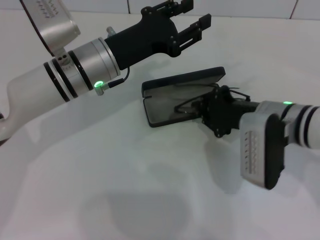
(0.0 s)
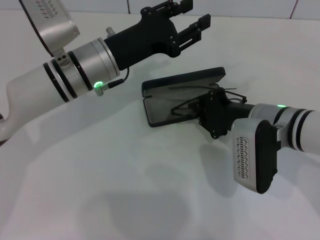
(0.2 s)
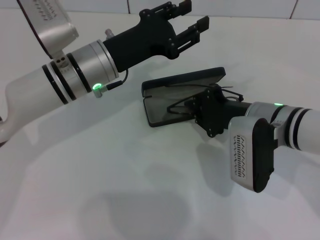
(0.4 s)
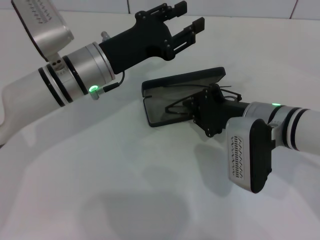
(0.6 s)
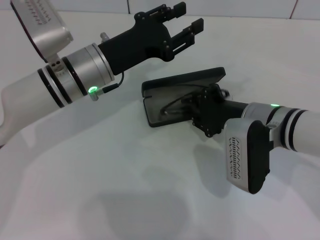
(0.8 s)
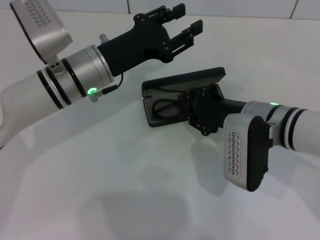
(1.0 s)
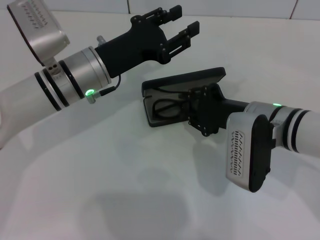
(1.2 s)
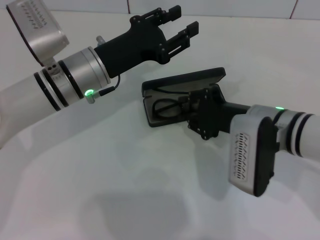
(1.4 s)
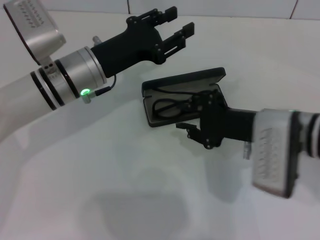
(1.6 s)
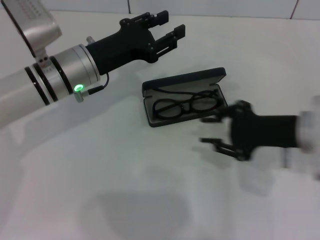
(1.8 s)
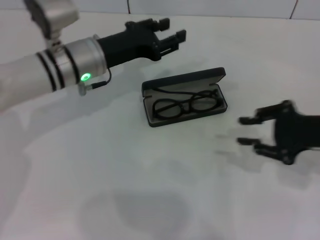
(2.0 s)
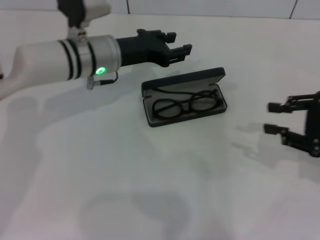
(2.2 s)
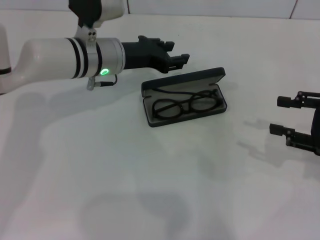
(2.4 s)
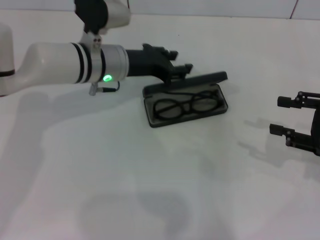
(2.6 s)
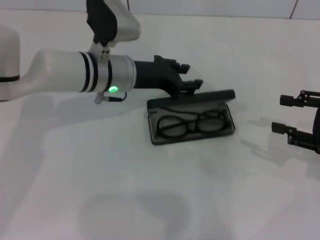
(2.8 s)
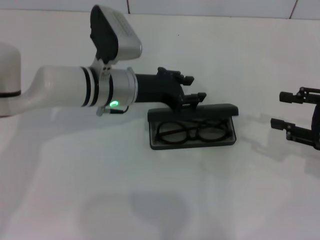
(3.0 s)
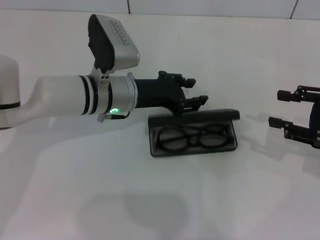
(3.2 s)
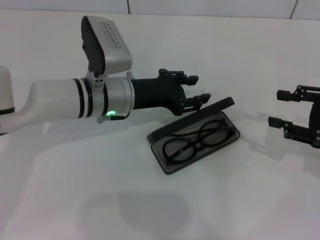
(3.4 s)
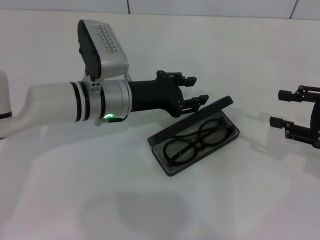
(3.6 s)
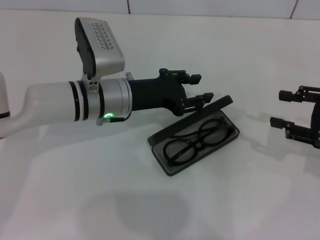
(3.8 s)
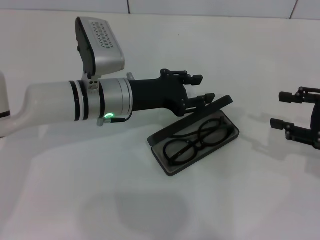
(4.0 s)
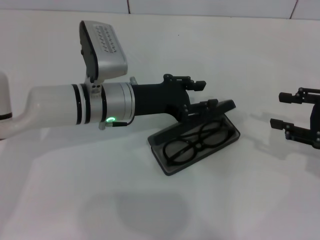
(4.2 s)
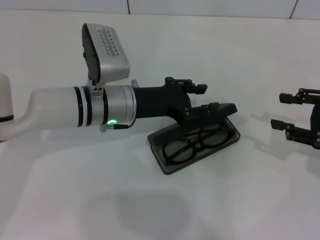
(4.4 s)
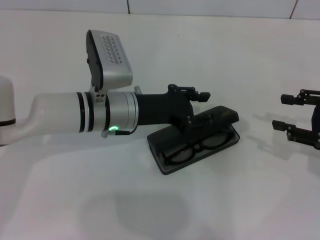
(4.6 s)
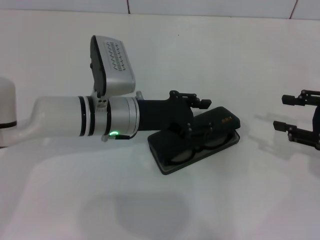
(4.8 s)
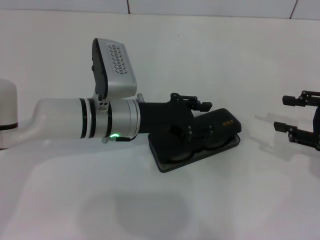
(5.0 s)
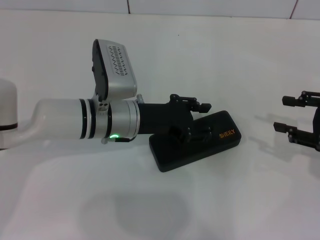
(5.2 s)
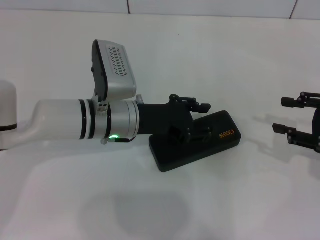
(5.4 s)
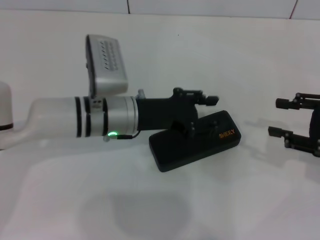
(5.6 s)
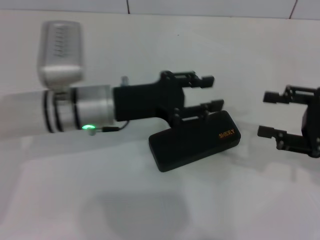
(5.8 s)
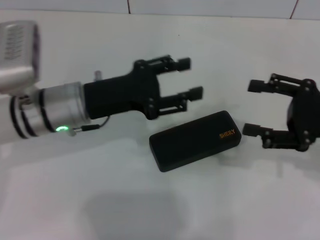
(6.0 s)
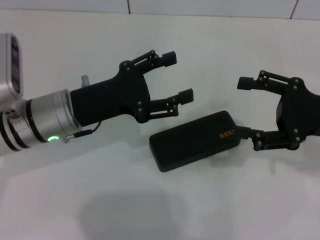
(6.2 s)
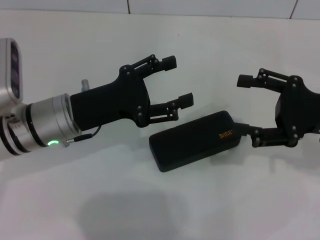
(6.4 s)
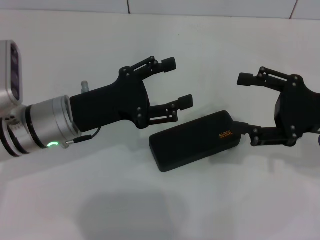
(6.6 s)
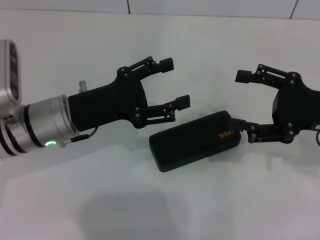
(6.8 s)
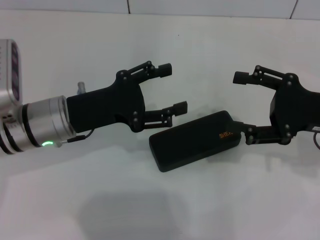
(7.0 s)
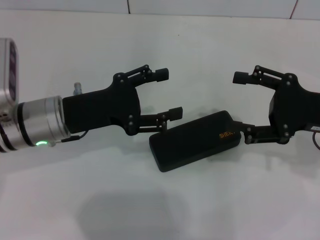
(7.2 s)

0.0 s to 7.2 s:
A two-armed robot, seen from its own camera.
Step, 0.0 to 1.6 s: Put the glasses into the case with your right hand.
Step, 1.8 to 5.2 s: Close the glasses case with your left hand.
0.0 to 1.4 s: The grippers stay close to where they were, moving slightly.
1.4 to 2.8 s: The right gripper heads to the right, covering about 20 cm. The left gripper ends up some 5 cm from where it was.
2.8 to 4.4 s: The left gripper moves roughly 5 cm.
4.4 to 5.8 s: The grippers make only small movements.
5.8 to 7.2 s: The right gripper opens up; the left gripper moves to the left, some 5 cm, and opens.

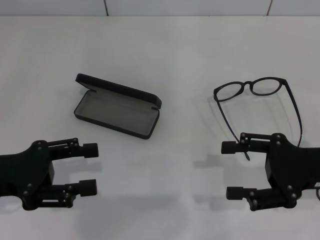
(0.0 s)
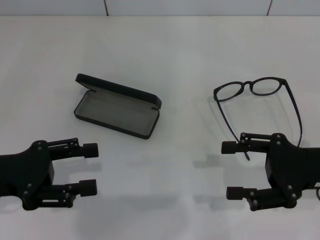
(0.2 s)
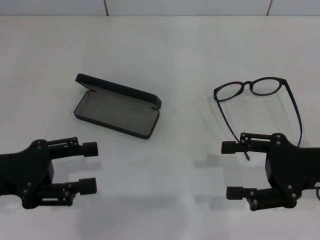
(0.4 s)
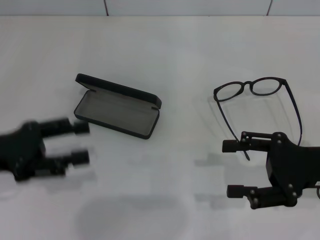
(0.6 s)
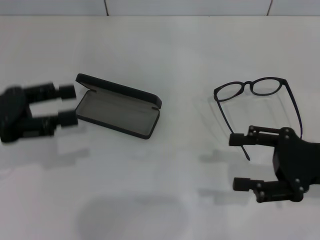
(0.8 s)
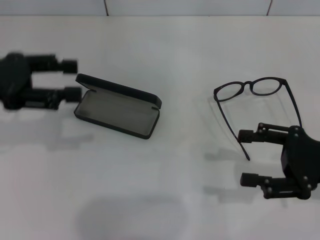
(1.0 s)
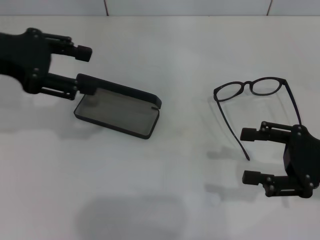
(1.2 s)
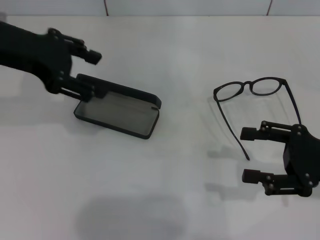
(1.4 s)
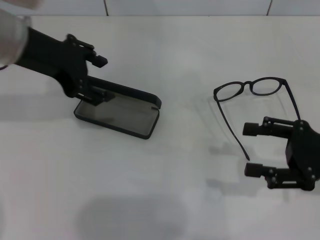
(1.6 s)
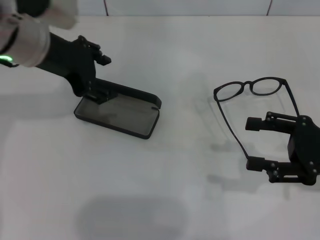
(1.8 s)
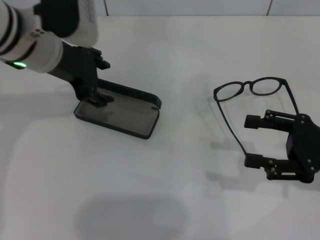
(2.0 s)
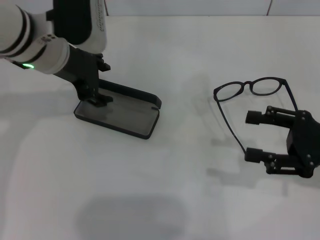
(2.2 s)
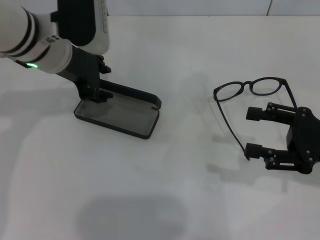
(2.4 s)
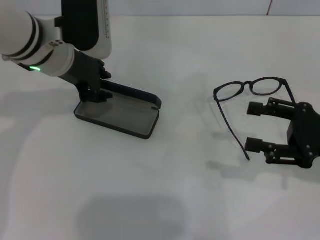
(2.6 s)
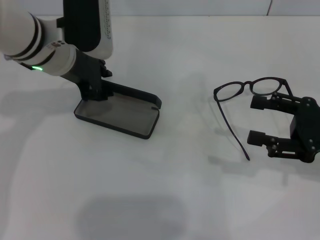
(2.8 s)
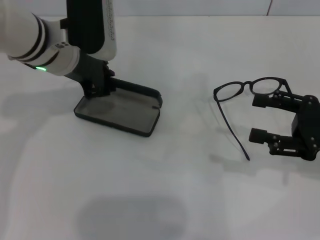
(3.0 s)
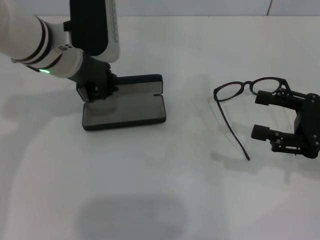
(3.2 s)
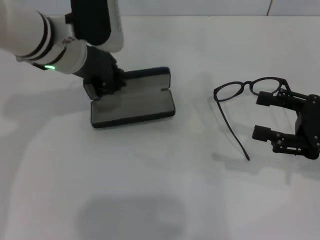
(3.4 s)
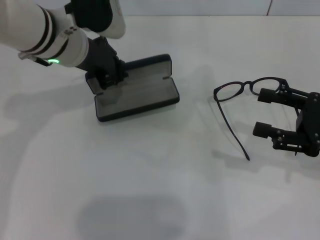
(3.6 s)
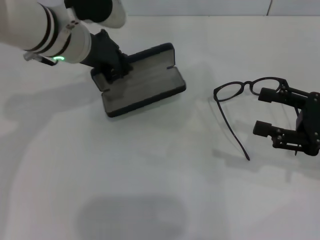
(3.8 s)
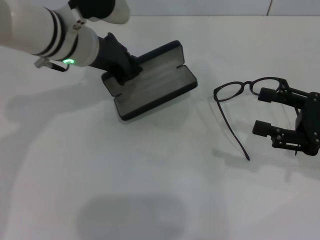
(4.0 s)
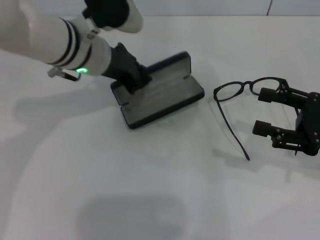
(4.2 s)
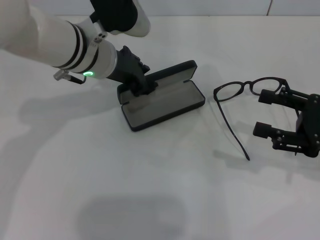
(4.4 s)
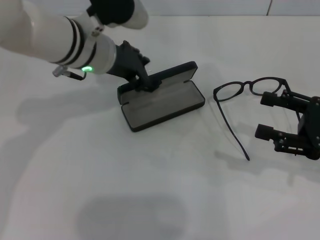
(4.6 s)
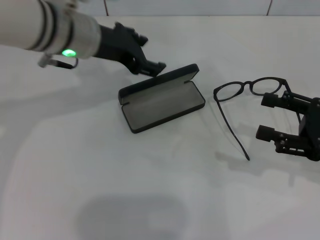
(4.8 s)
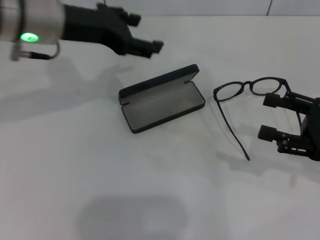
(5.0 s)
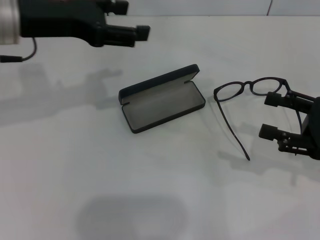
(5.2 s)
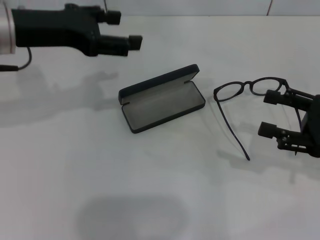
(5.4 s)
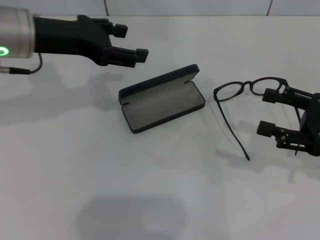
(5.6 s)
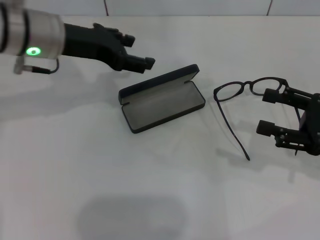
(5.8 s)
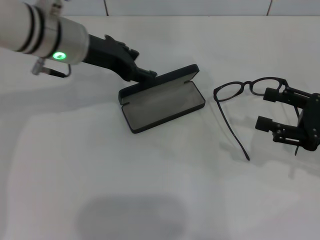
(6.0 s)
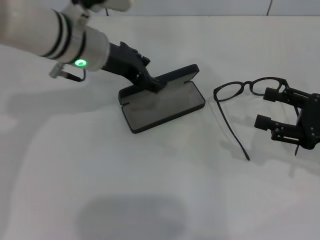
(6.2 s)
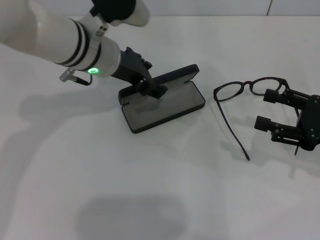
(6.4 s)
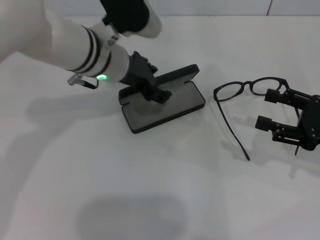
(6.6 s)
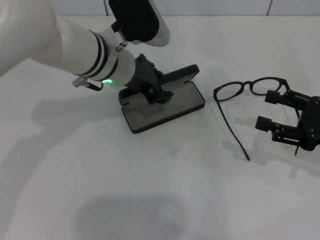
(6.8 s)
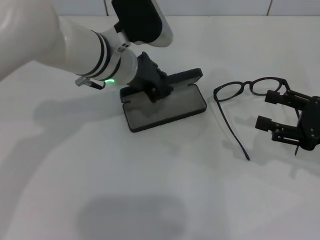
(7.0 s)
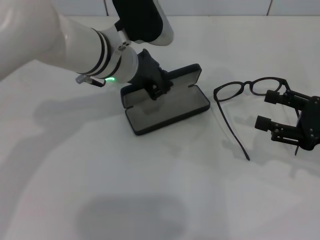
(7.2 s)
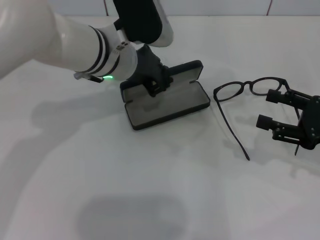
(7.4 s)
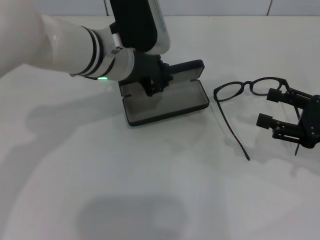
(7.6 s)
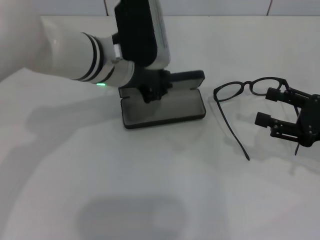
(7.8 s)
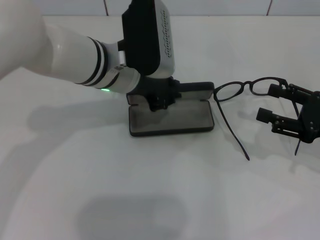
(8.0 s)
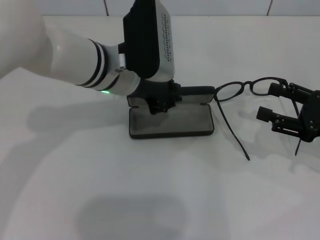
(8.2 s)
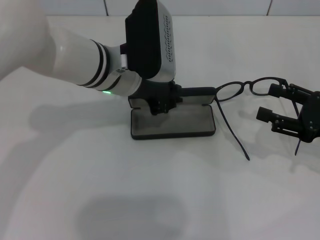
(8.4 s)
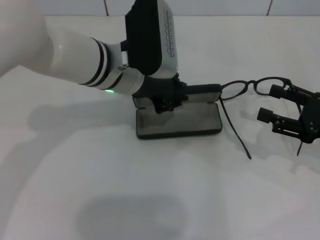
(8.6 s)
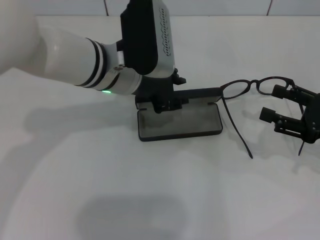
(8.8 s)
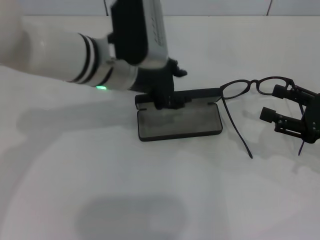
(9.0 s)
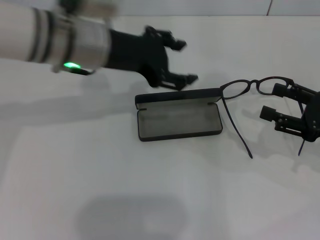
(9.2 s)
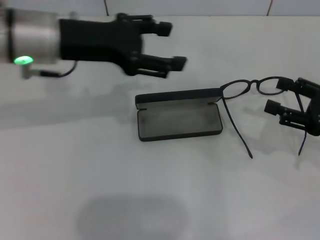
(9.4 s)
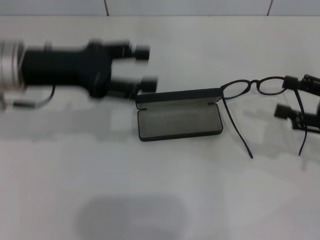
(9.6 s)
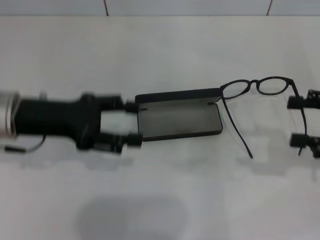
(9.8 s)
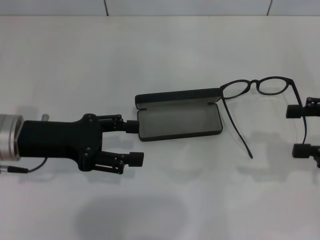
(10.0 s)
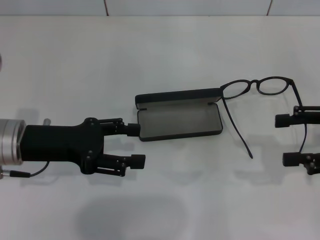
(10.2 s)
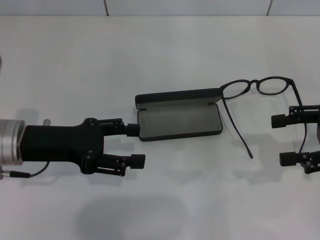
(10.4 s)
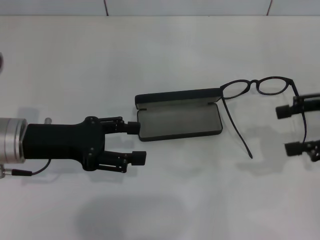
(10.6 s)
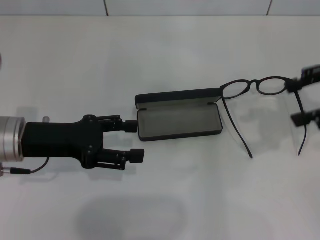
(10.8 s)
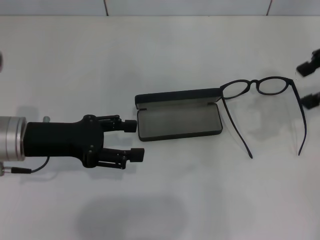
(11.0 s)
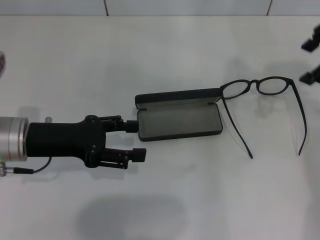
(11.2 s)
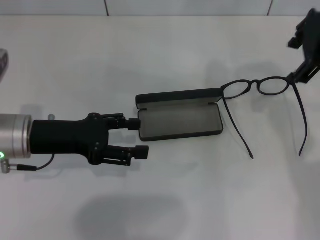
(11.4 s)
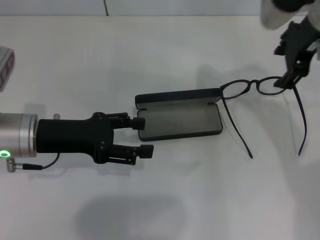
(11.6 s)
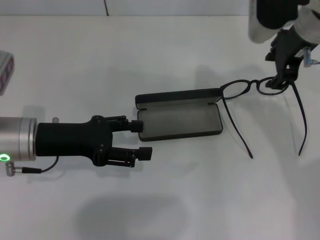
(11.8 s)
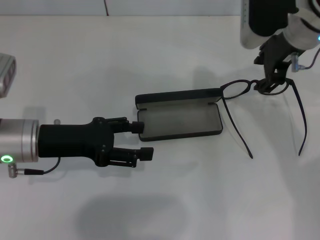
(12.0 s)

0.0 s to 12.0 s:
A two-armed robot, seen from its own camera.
Step, 0.0 to 3.0 s: Grab the glasses case with your left hand.
Step, 3.2 to 8.8 s: Place the glasses case in the center of the table with your left hand.
0.0 to 1.6 s: The left gripper shifts roughly 20 cm forward, upward and to the right.
1.6 to 3.0 s: The left gripper heads downward, covering about 5 cm, and closes up.
4.4 to 6.0 s: The left gripper opens.
6.0 to 7.6 s: The left gripper is displaced to the right by some 5 cm, and closes up.
7.6 to 9.0 s: The grippers move only a little.
9.0 to 10.4 s: The left gripper shifts some 15 cm to the left, backward and downward, and opens, while the right gripper travels upward by approximately 5 cm.
10.4 to 12.0 s: The right gripper travels to the left and forward by about 20 cm.

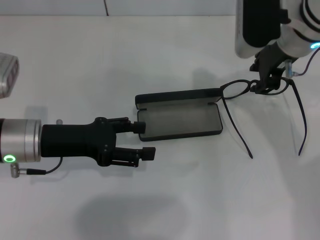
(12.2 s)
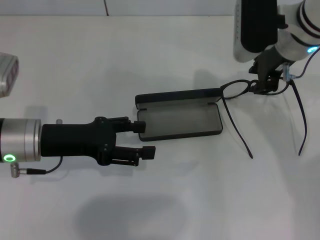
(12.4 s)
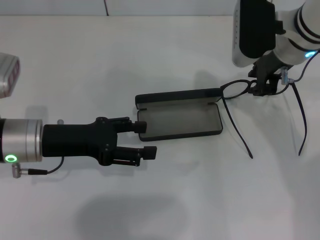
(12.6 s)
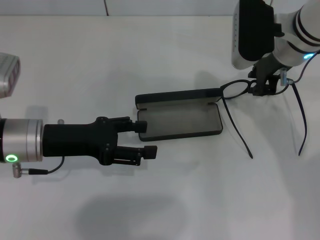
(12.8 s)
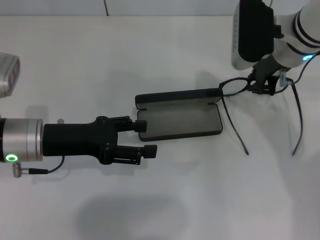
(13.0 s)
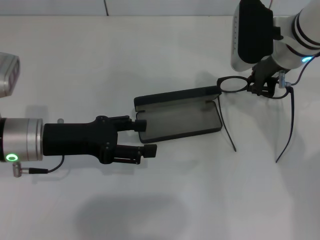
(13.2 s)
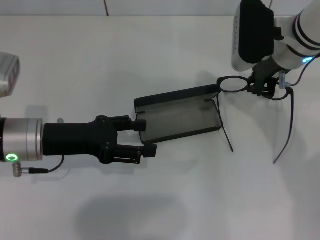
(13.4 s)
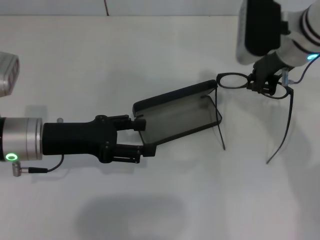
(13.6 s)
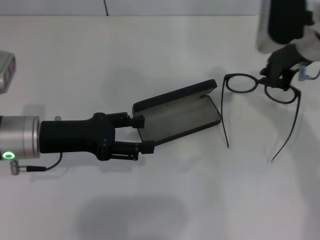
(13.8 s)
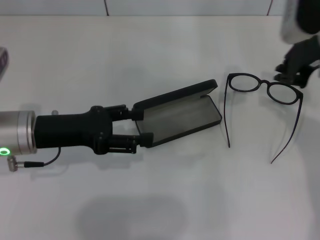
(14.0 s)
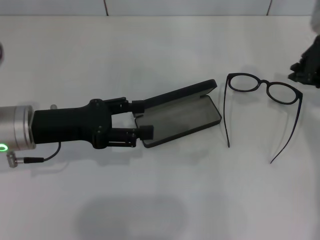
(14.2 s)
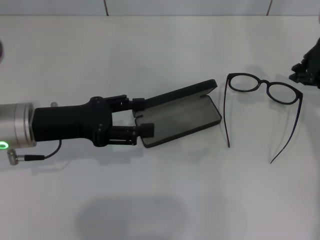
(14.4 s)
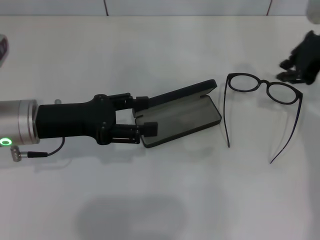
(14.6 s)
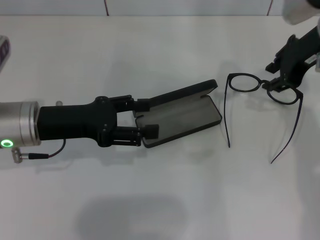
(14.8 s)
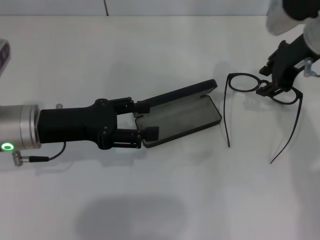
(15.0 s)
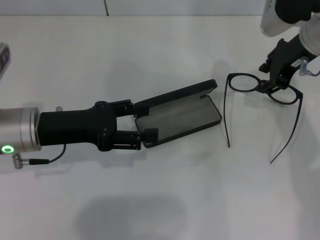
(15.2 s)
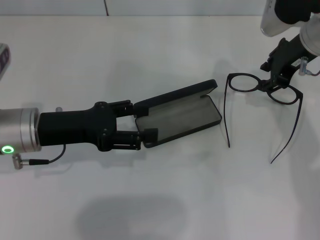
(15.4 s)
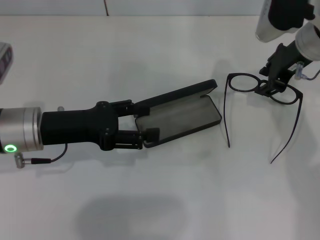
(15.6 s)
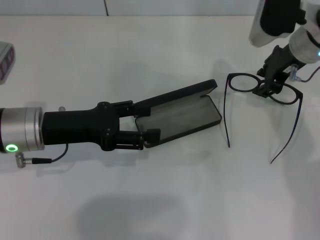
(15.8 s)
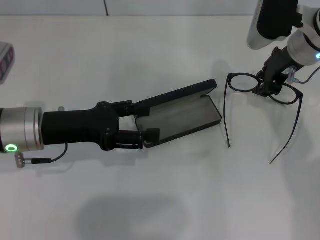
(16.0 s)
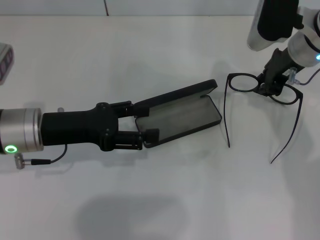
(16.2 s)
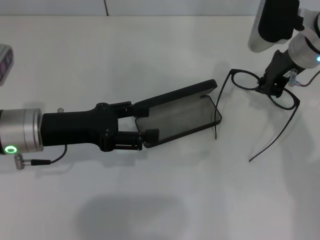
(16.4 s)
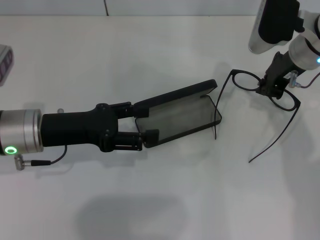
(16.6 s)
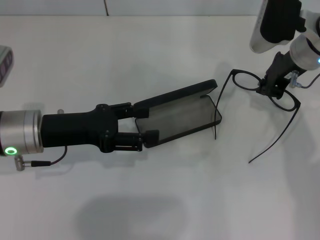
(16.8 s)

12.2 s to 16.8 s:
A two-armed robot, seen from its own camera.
Step, 12.2 to 16.2 s: Grab the eyeglass frame with your right hand.
12.2 to 13.8 s: The right gripper closes up.
13.8 to 15.2 s: The right gripper opens up.
15.2 to 16.8 s: The right gripper closes its fingers.
